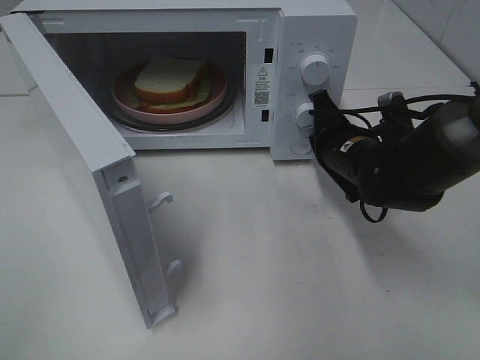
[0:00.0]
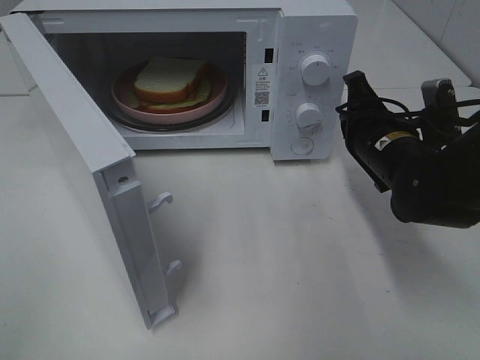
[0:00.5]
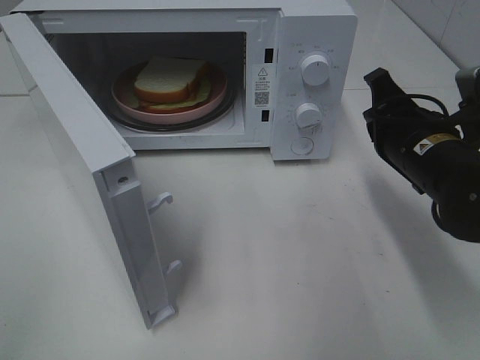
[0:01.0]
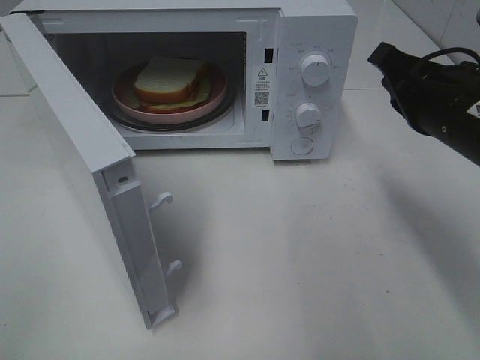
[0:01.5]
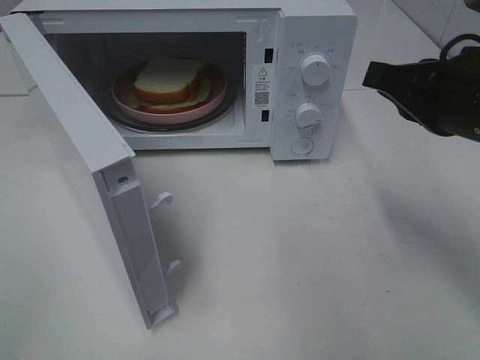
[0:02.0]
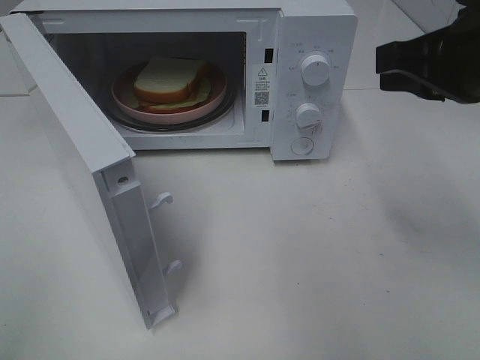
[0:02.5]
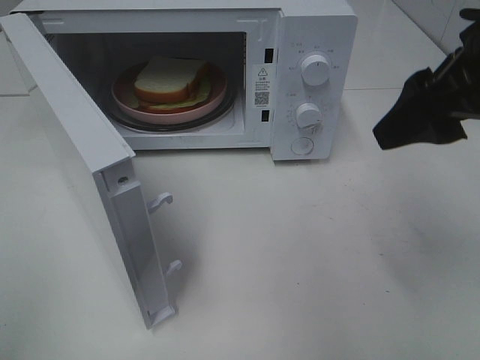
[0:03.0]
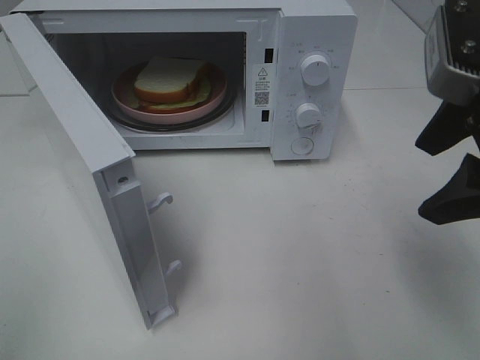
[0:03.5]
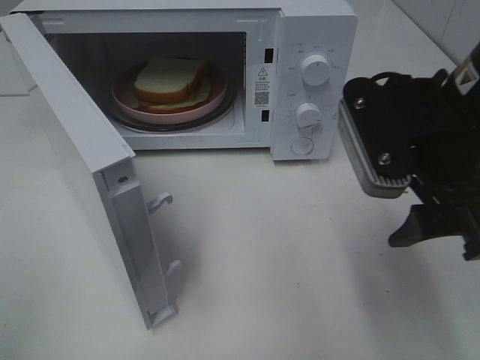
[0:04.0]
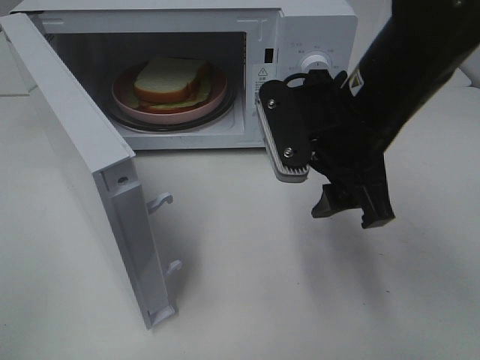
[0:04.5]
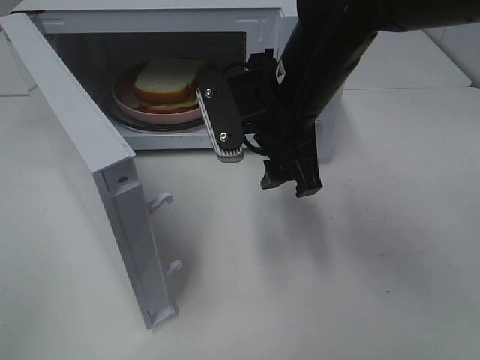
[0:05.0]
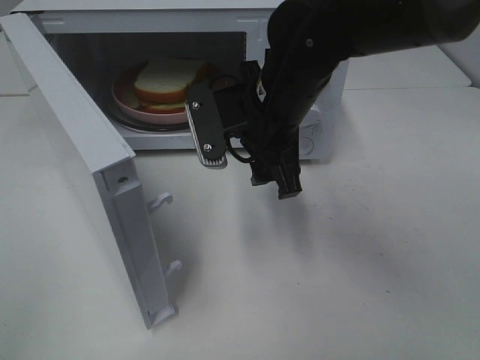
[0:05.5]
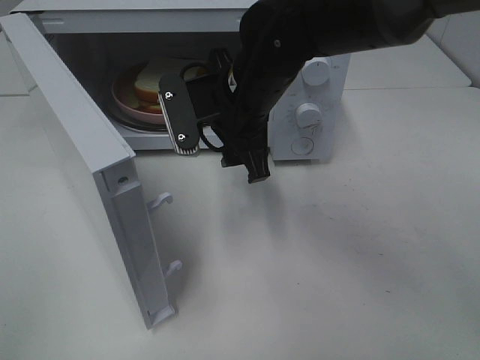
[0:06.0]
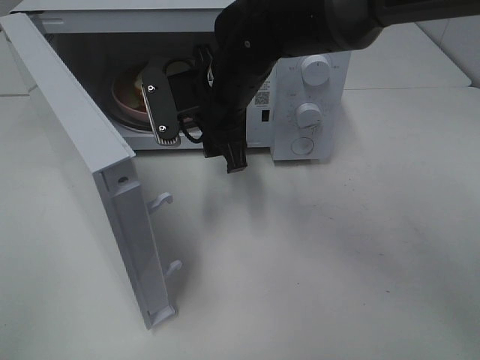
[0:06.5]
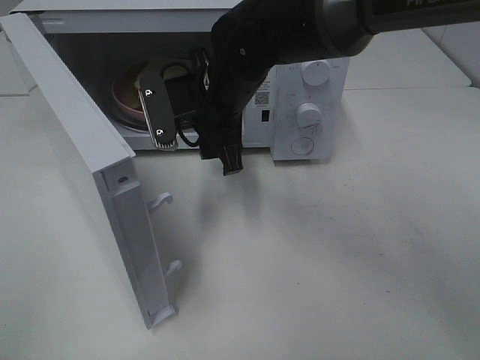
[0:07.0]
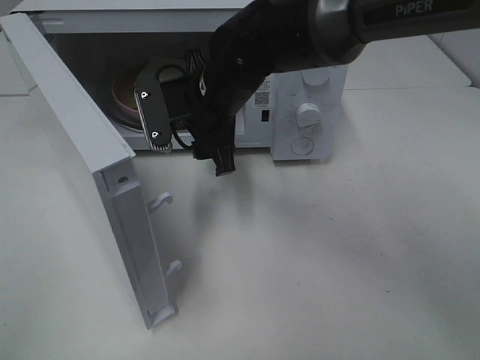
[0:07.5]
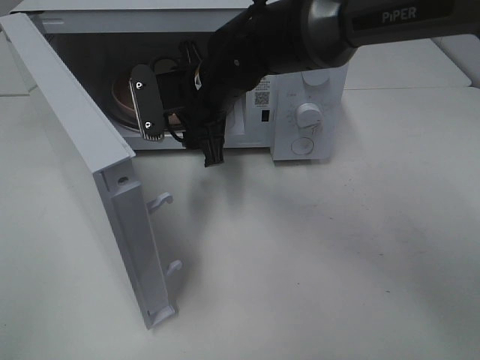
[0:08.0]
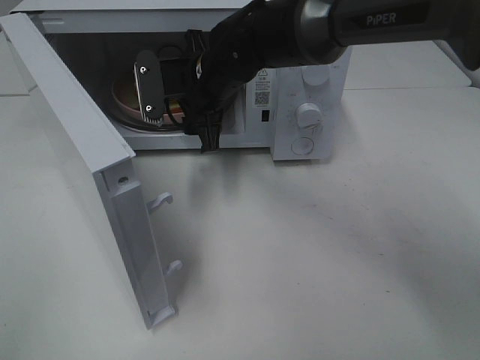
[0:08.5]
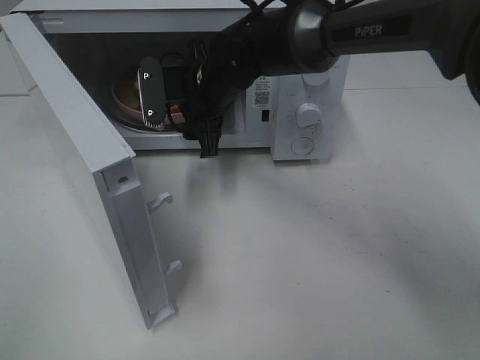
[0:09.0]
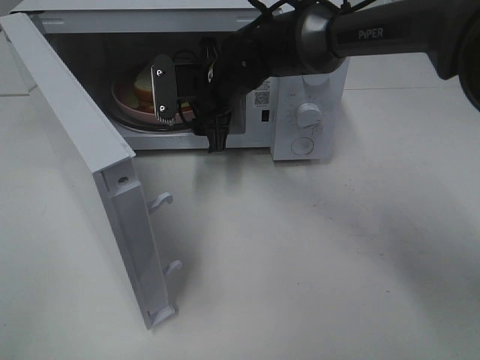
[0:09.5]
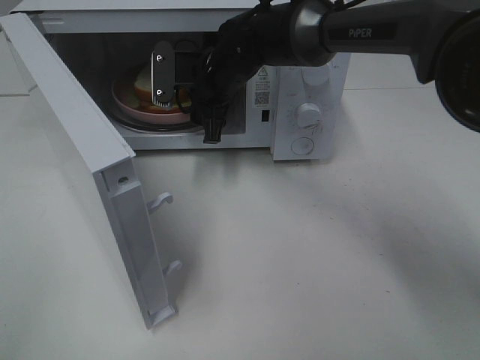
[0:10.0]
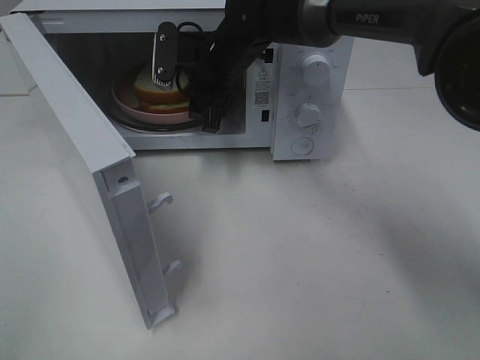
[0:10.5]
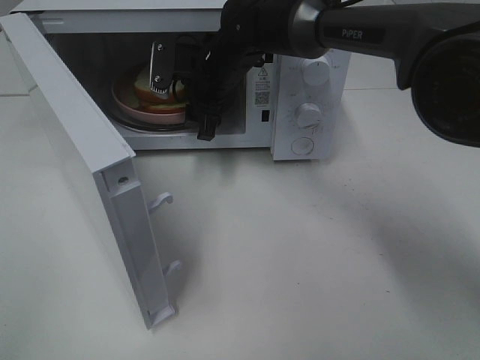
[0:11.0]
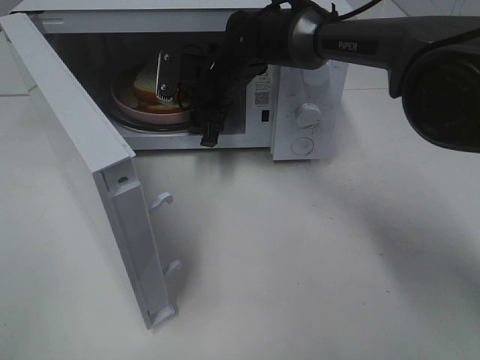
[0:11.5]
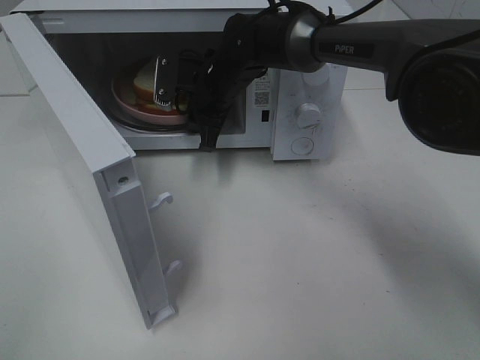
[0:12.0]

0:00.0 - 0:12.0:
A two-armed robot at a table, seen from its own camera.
Task of the whole recording: Heat Sandwich.
0:00.0 - 0:02.0: The right gripper shifts roughly 20 cm upward and backward.
0:02.0 - 0:04.0: The right gripper opens.
0:04.0 - 0:06.0: The right gripper heads to the left and forward, covering approximately 20 cm.
0:06.0 - 0:08.0: The right gripper shifts by some 5 cm.
0:08.0 - 0:10.0: The right gripper is displaced forward by roughly 5 cm.
0:10.0 - 0:12.0: The right gripper closes its fingers.

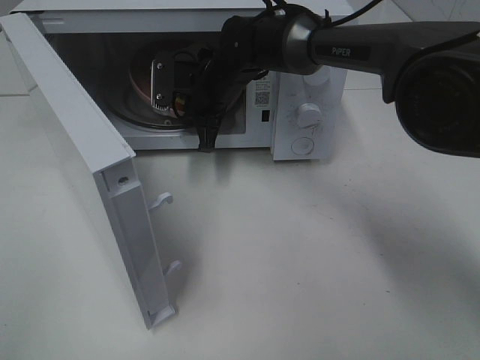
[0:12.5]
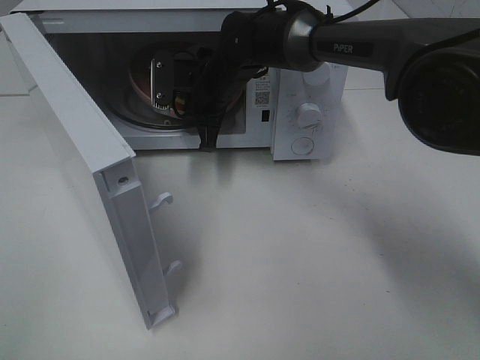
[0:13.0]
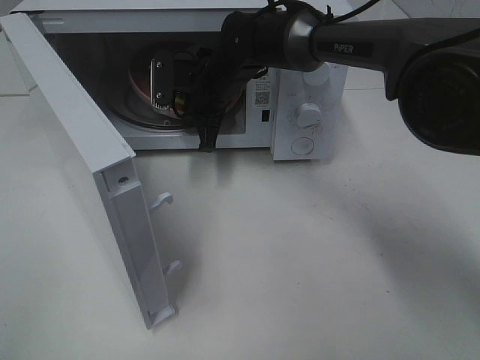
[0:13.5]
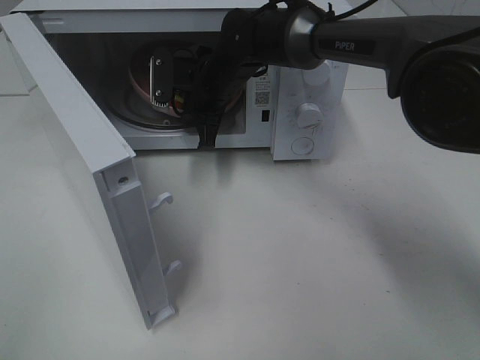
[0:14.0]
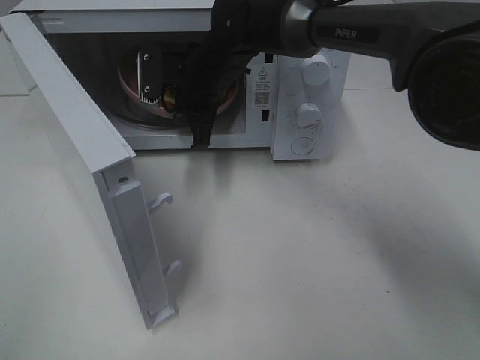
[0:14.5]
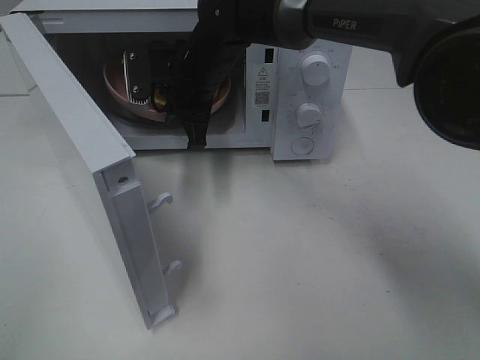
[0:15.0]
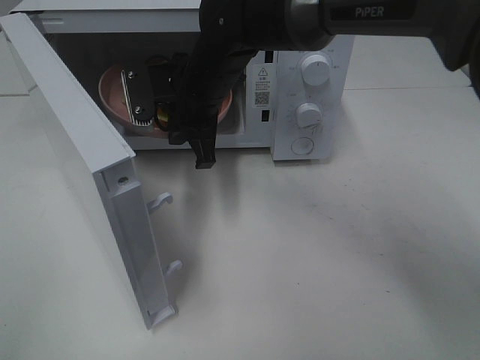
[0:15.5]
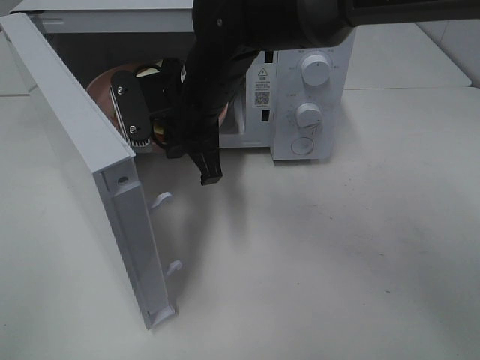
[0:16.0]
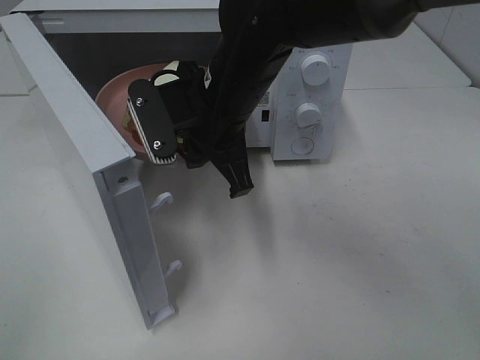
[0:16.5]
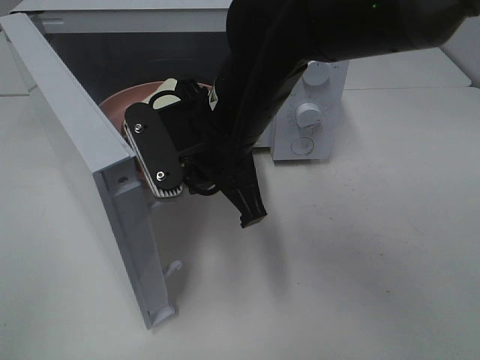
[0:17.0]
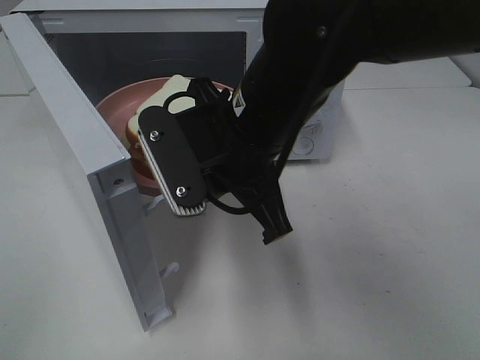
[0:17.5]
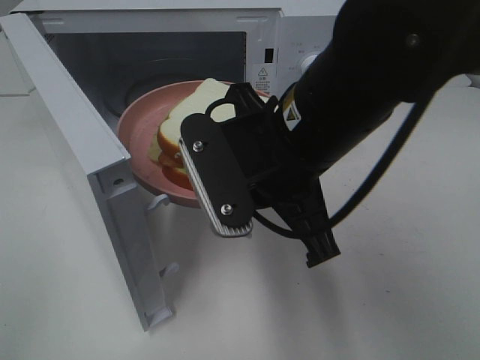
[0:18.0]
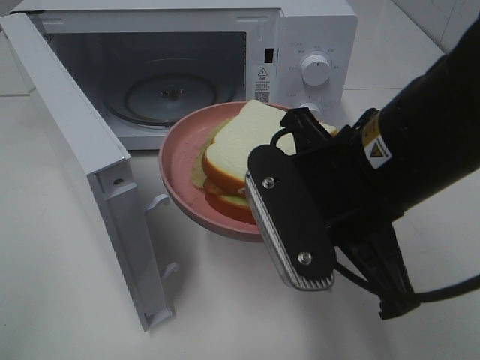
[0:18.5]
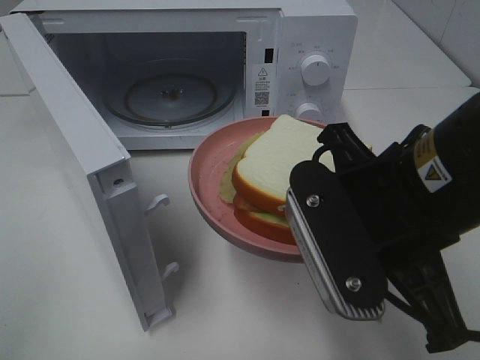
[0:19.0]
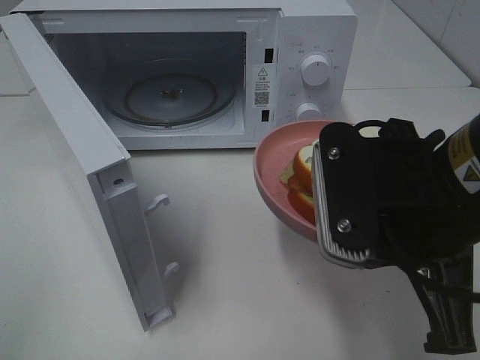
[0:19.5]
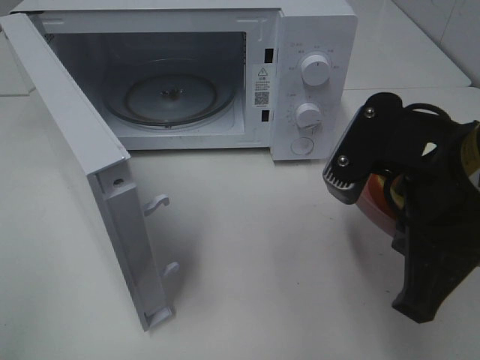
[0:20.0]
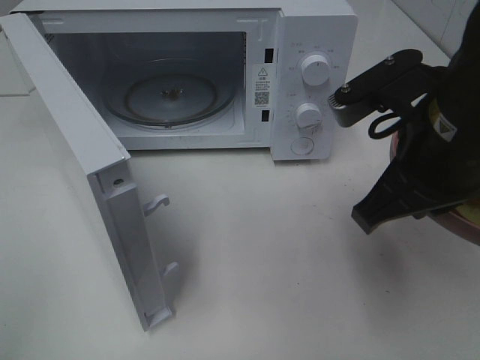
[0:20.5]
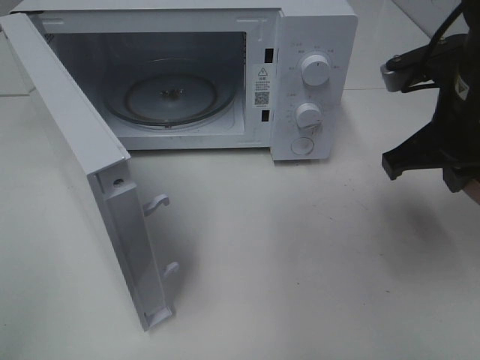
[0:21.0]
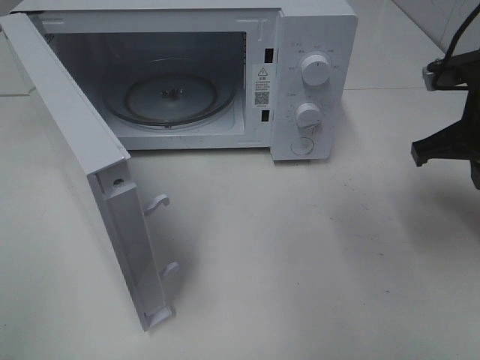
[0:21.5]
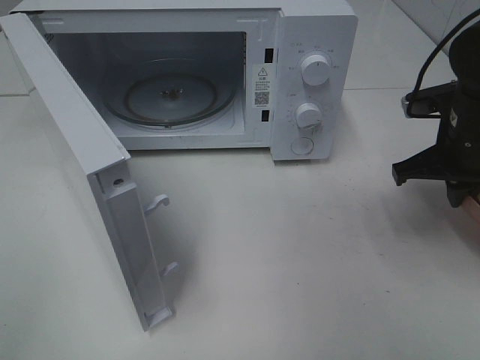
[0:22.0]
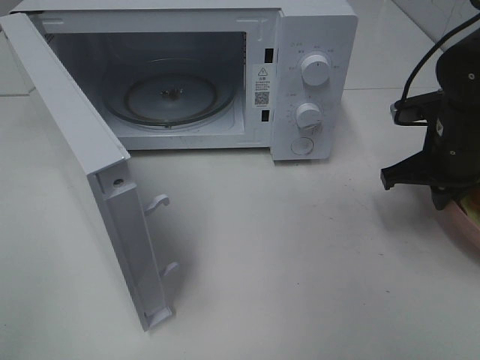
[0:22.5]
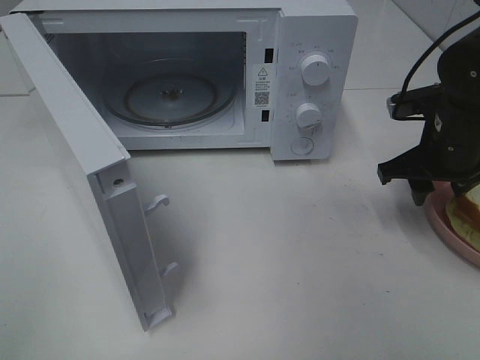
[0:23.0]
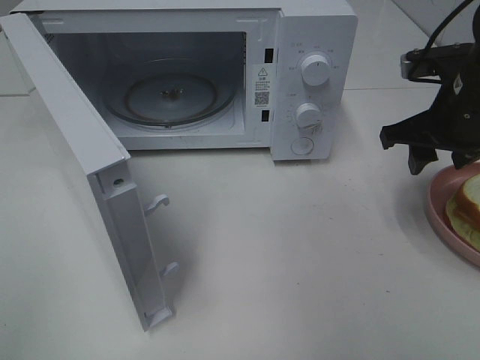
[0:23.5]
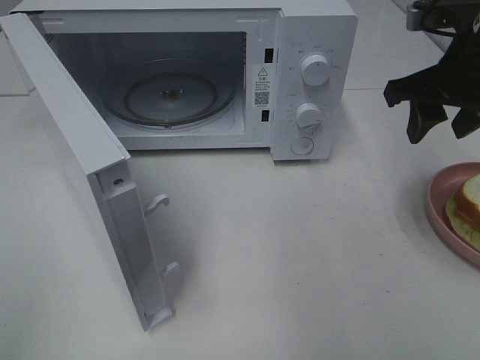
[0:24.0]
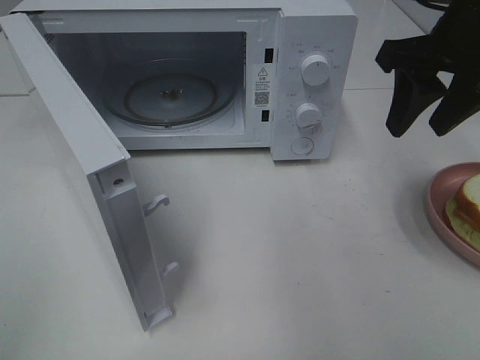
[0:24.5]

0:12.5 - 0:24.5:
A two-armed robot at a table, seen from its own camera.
Task of the whole recording: Heat Sandwich.
Step, 0:13.5 - 0:24.0: Right hand: place the plate on the table.
0:12.5 - 0:14.5: The grippers move only a little.
0:14.5 - 0:16.5: The right gripper shifts approximately 15 cm backward.
0:16.5 - 0:18.5: The right gripper is displaced backward and to the right by some 15 cm.
0:18.5 - 0:20.5: The right gripper moves to the right, some 5 cm.
0:20.5 - 0:22.5: The right gripper heads forward, to the right and downward, covering some 20 cm.
0:22.5 - 0:24.5: The right gripper heads upward, covering roughly 15 cm, and opens its fingers.

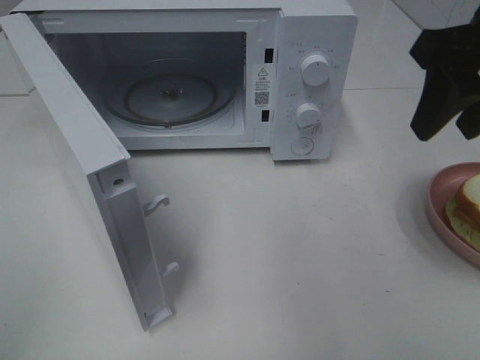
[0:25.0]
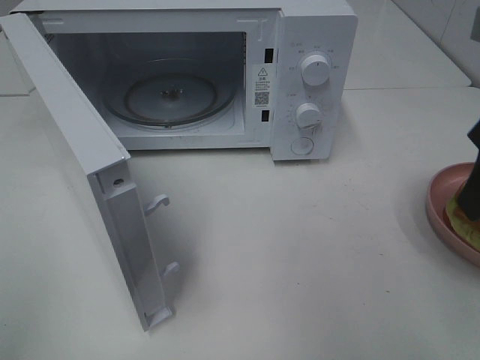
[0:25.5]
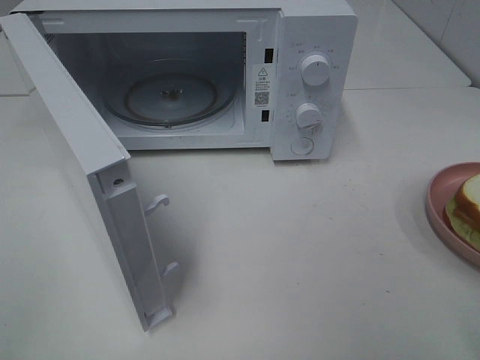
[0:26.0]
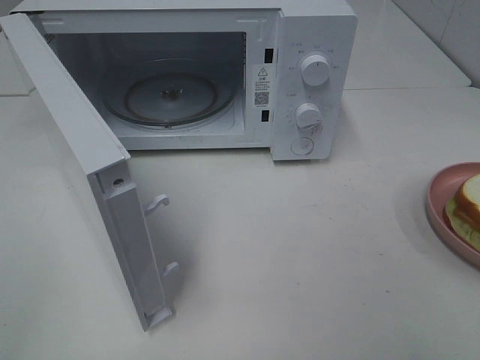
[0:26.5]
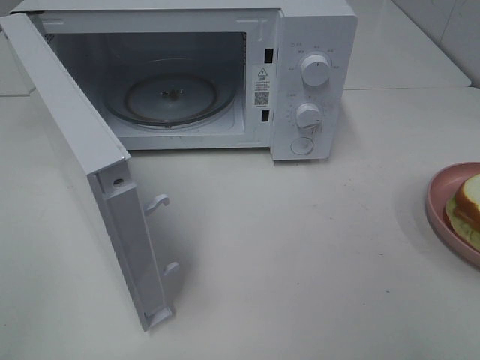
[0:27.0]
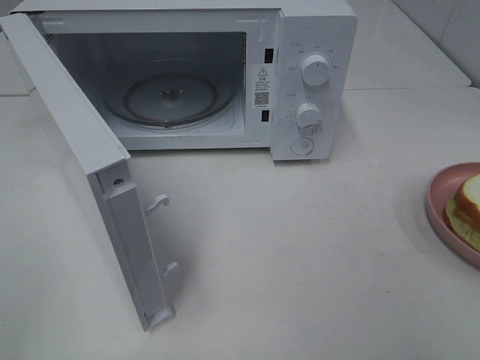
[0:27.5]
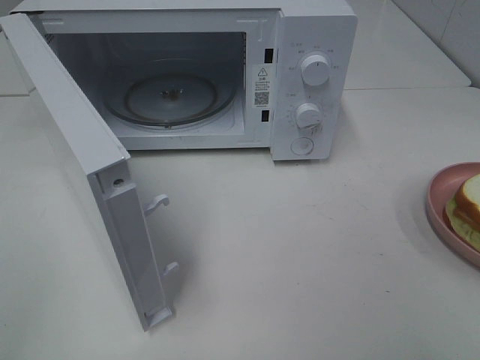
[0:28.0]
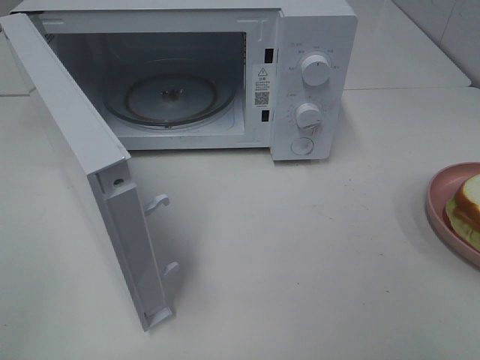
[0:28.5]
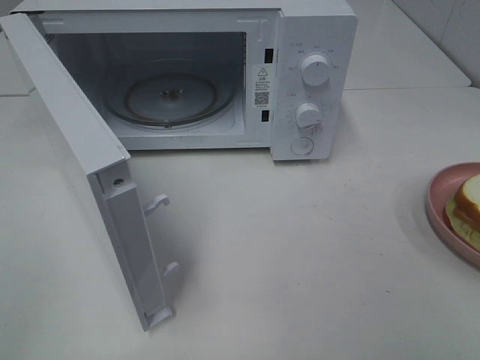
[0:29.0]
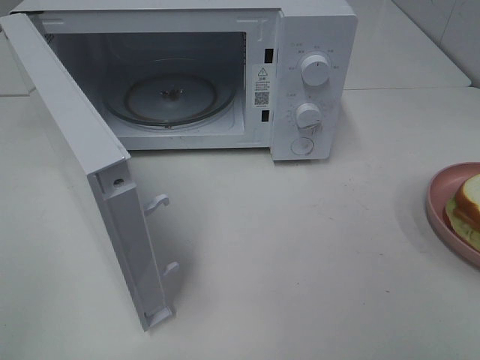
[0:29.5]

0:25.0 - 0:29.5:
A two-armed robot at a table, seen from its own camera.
Task of the whole recording: Heat Sandwich.
0:25.0 - 0:27.0: The right gripper goes about 25 cm backward.
